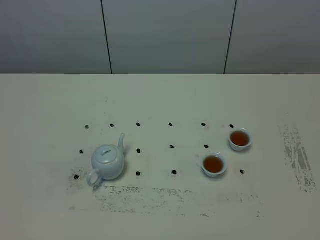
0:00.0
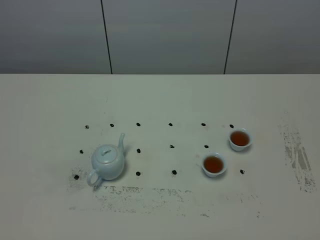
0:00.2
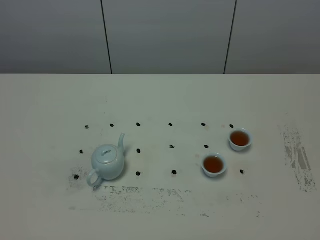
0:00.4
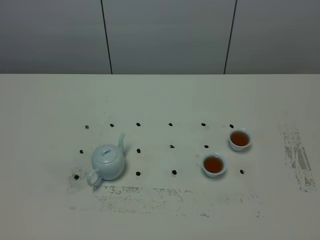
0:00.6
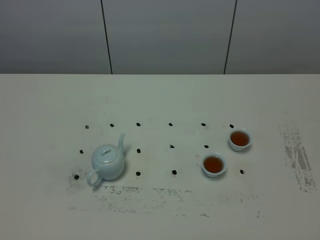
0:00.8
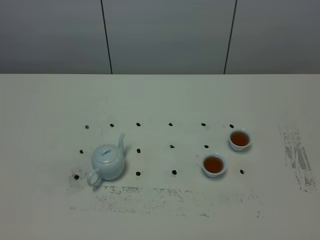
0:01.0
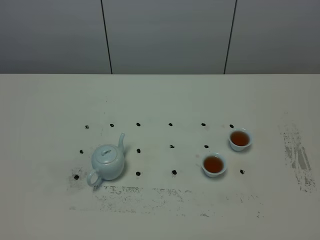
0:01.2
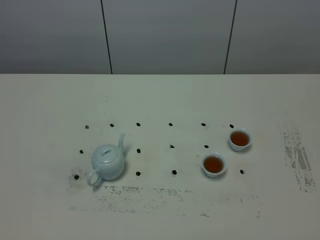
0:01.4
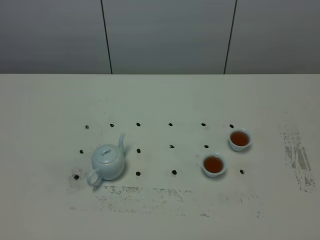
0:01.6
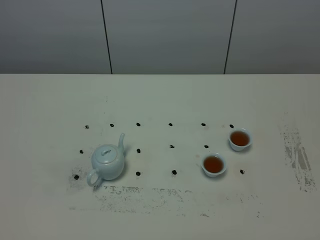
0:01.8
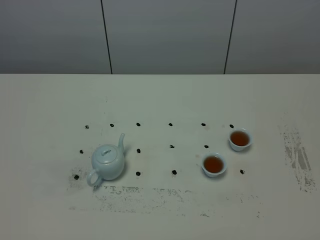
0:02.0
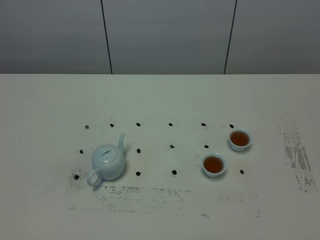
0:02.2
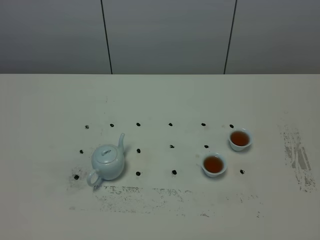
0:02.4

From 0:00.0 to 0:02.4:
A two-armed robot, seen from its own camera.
Task of the whole recording: grasp the blue porcelain teapot and pour the tea into the two blue porcelain teacups one by one, put the blue porcelain teapot back in its original place.
From 0:00.0 to 0:02.4: The two grippers keep their place.

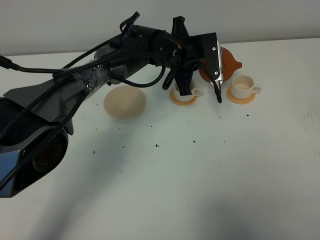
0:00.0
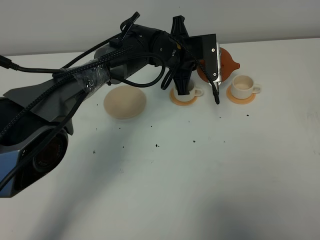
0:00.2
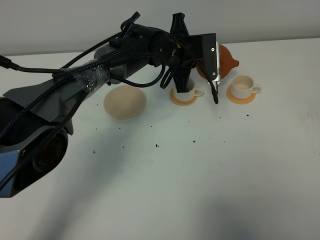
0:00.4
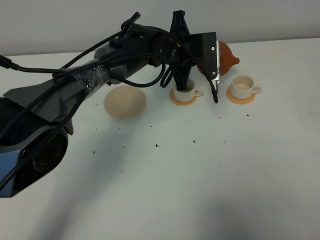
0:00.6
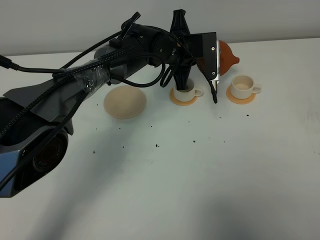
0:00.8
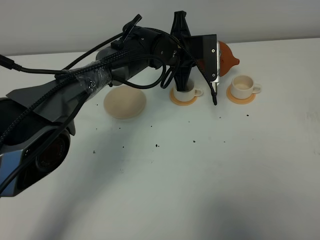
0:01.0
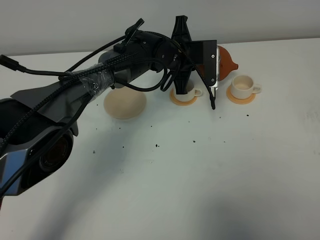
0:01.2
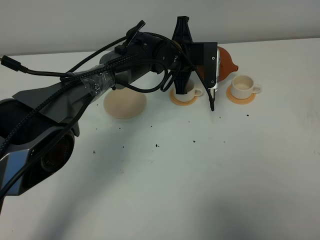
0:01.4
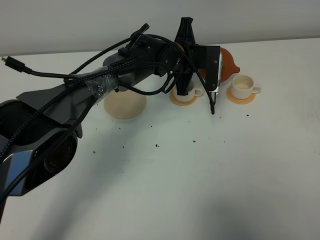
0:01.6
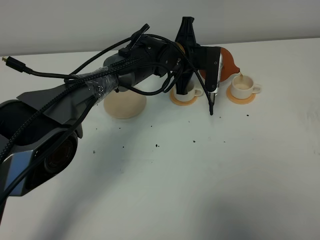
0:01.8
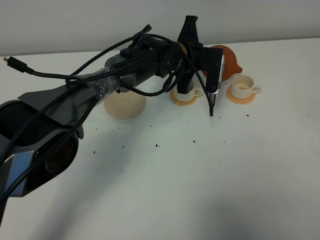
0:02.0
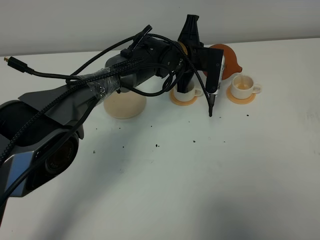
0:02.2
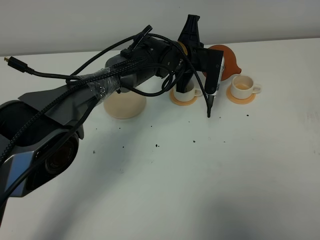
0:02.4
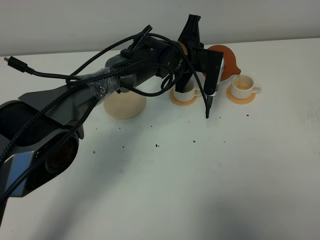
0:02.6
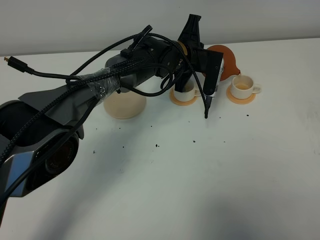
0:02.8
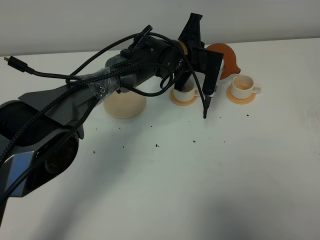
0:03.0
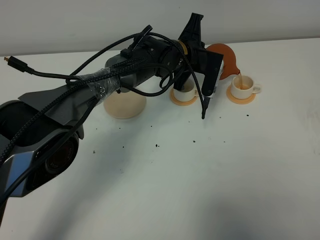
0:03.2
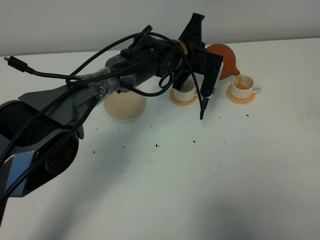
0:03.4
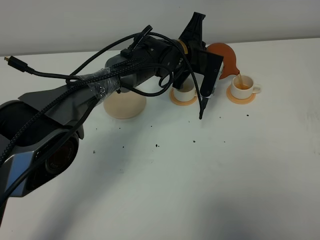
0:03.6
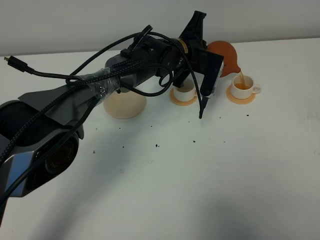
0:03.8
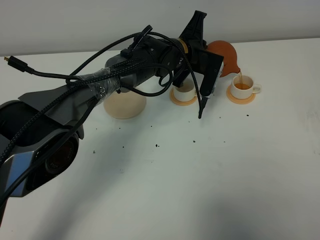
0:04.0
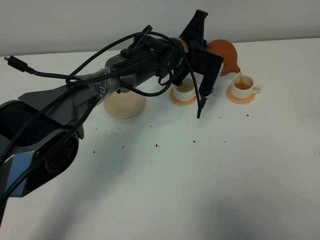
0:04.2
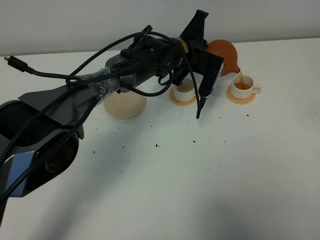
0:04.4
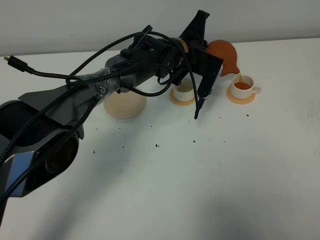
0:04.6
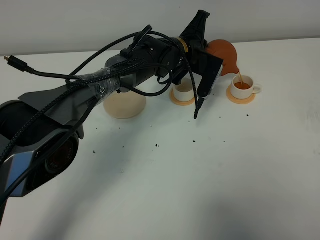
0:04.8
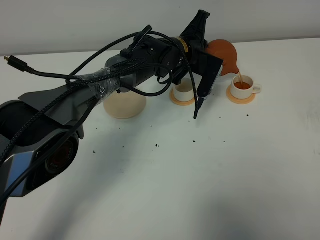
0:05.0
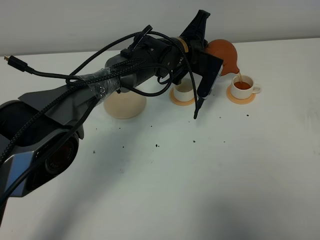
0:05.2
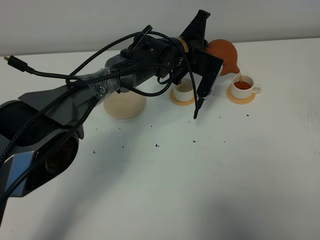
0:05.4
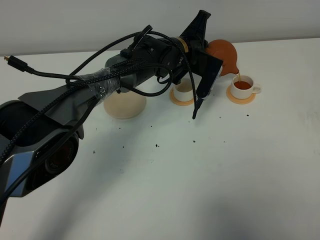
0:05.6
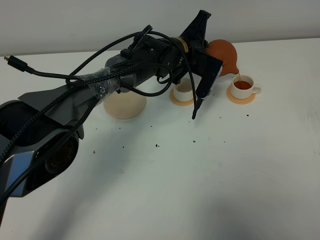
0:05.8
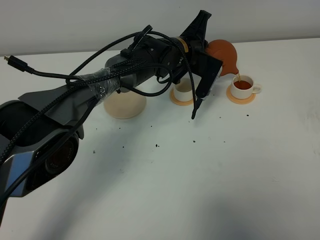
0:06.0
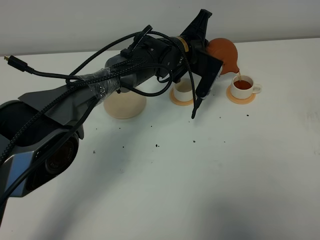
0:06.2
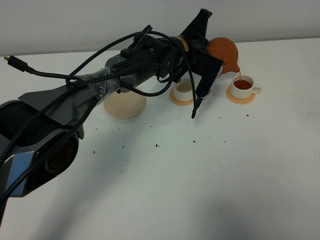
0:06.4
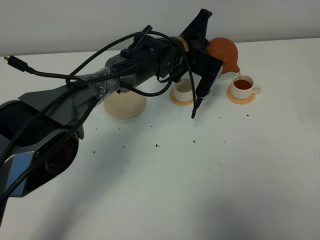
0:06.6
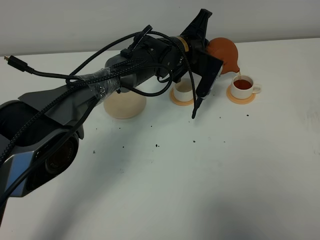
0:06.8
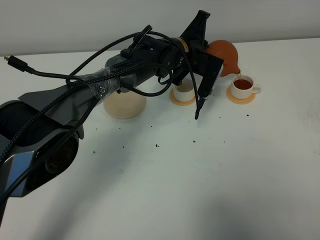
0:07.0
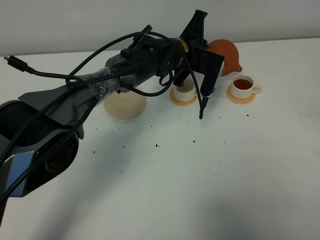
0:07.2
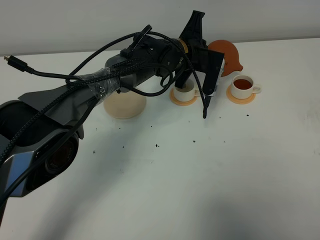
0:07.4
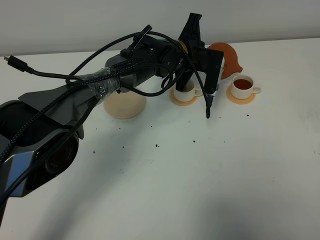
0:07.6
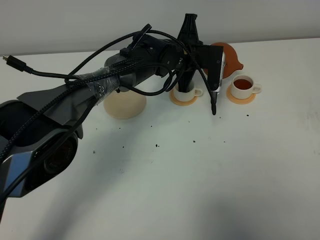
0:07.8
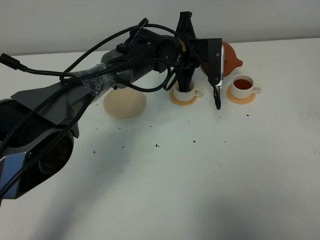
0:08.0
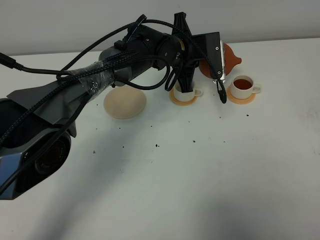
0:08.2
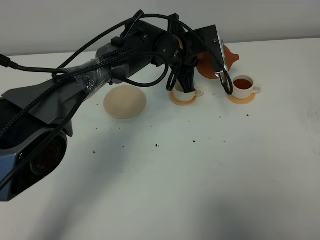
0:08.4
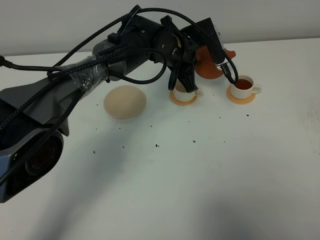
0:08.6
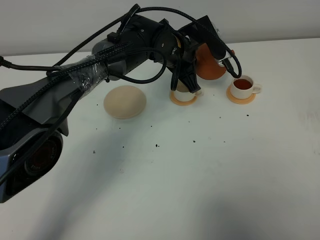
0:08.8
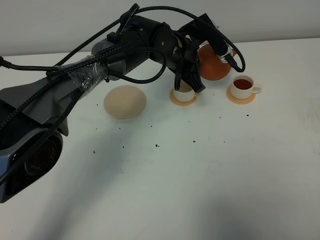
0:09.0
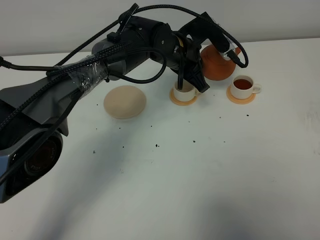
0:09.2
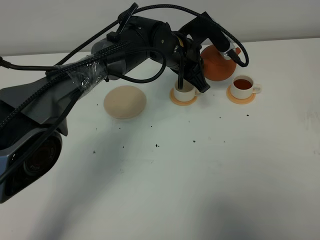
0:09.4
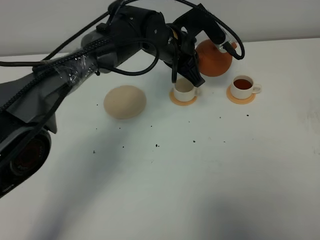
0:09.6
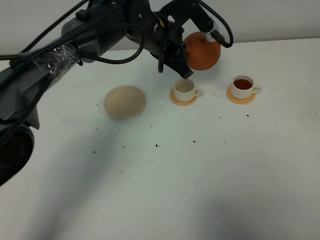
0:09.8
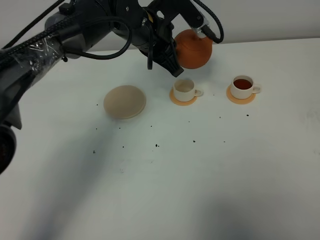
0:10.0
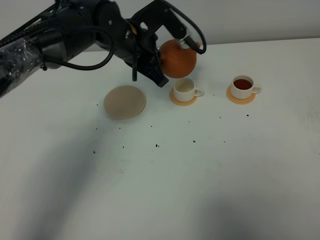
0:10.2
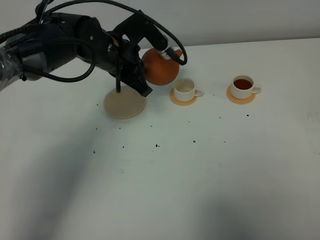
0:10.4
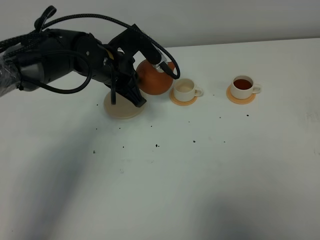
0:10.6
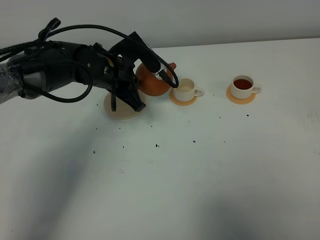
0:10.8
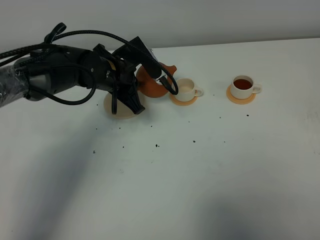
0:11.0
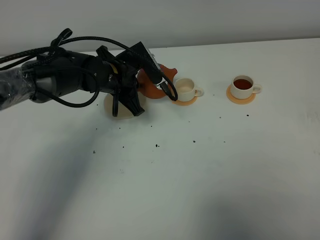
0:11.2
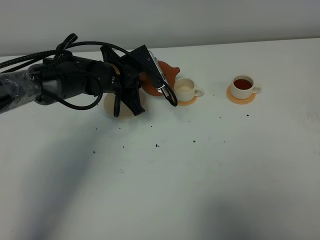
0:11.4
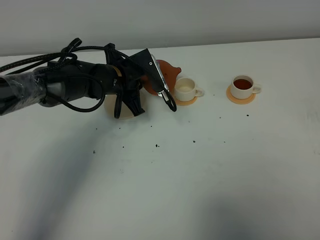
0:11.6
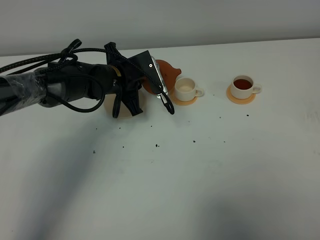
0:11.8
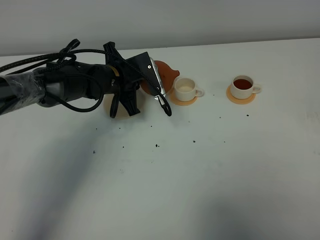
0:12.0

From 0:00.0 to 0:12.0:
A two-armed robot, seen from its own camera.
Task of the whole recording: grasp the brown teapot and pour the tea into the two white teacups one by one, put the brown teapot back in its original place.
Step, from 0:00.0 to 0:07.4: Pour tea into the teacup with the left gripper.
From 0:00.0 to 0:01.6: The grippers move only a little.
From 0:01.6 to 0:03.0: The grippers make only small movements.
From 0:03.0 to 0:07.6: There are only small adjustments of the grippers.
From 0:09.0 to 0:10.4: The left gripper travels to the left by roughly 10 cm.
From 0:10.4 to 0:12.0: The left gripper heads downward, covering about 10 cm.

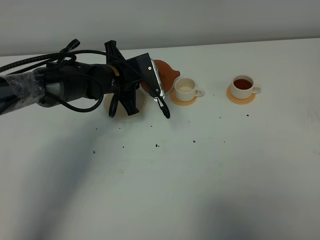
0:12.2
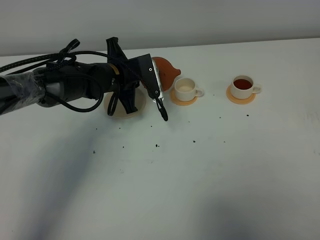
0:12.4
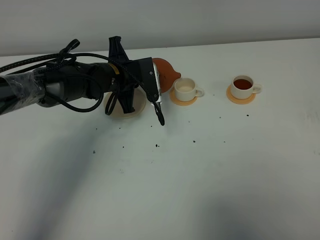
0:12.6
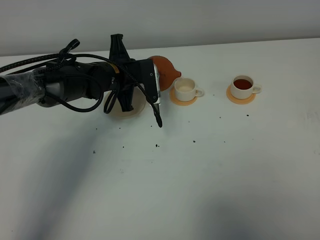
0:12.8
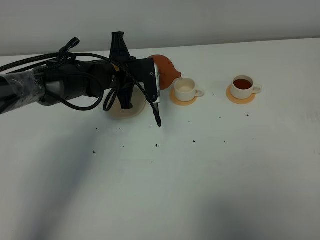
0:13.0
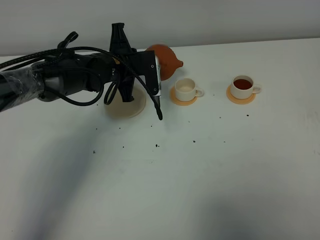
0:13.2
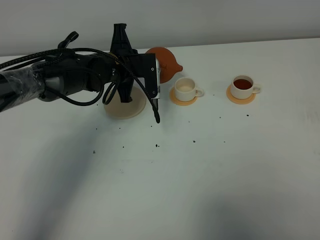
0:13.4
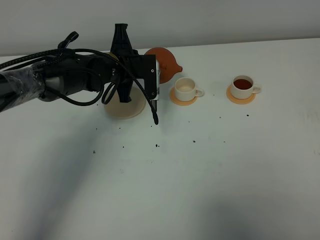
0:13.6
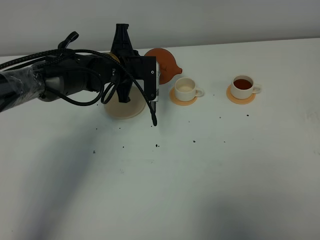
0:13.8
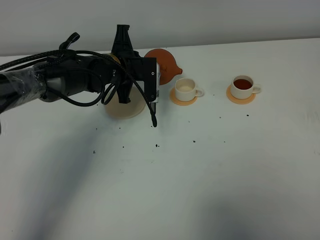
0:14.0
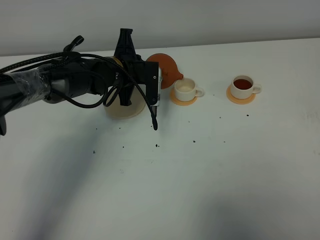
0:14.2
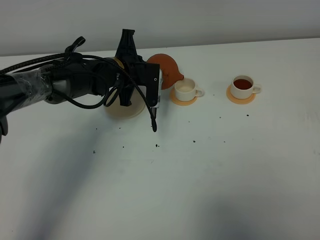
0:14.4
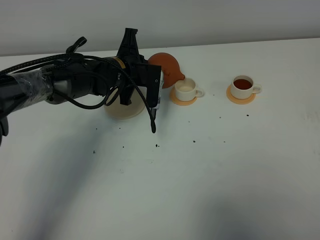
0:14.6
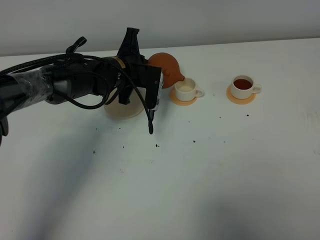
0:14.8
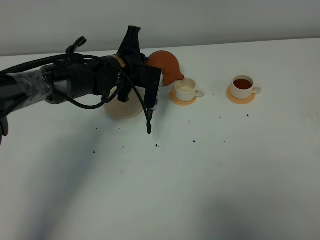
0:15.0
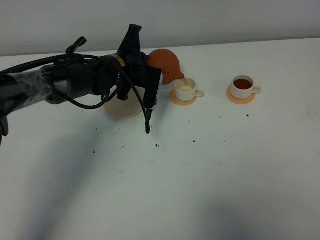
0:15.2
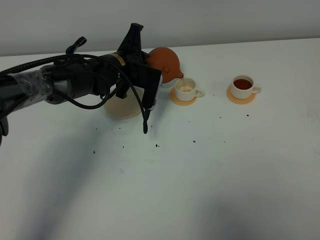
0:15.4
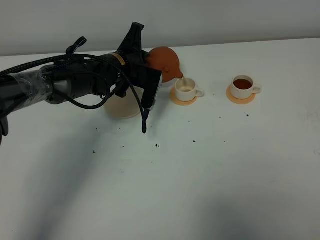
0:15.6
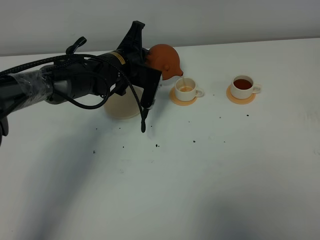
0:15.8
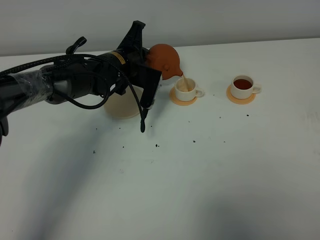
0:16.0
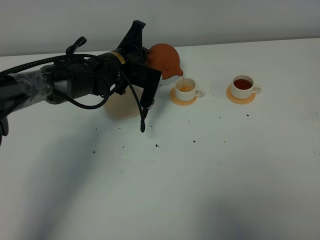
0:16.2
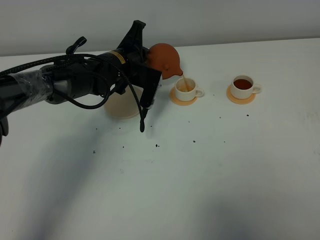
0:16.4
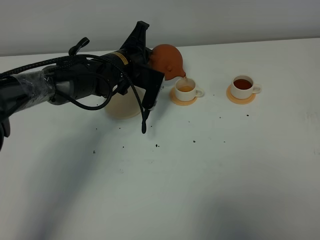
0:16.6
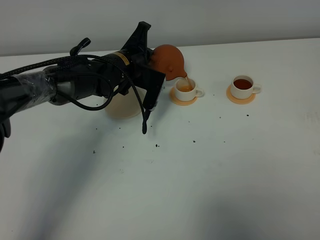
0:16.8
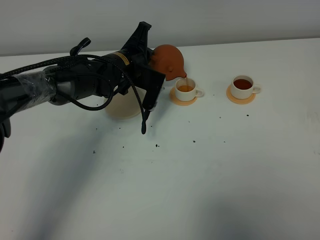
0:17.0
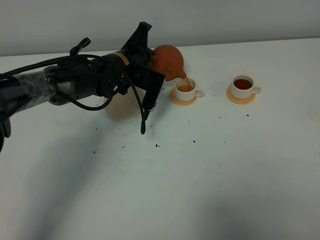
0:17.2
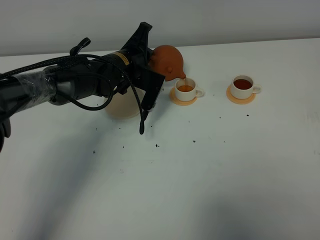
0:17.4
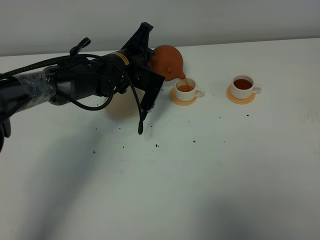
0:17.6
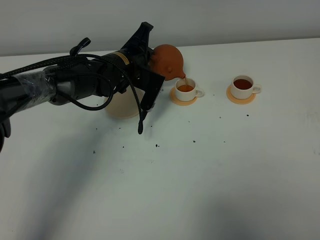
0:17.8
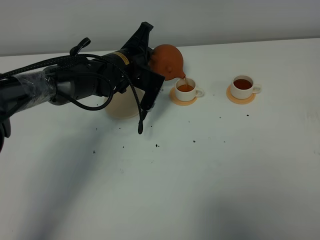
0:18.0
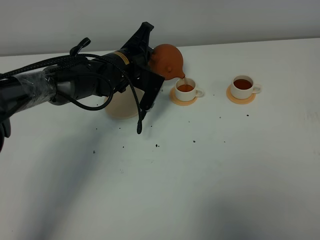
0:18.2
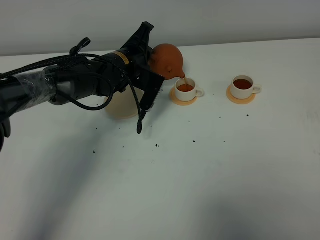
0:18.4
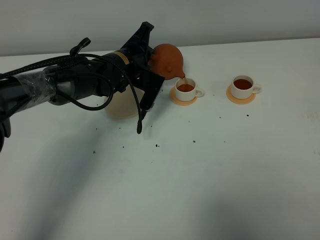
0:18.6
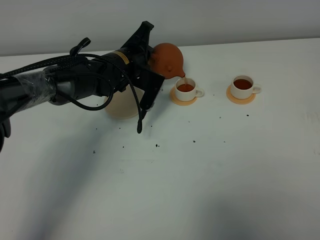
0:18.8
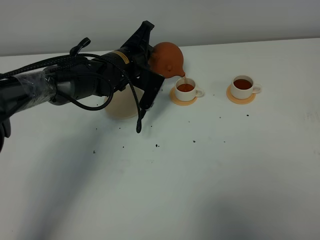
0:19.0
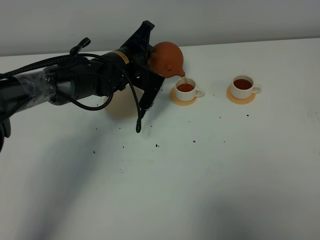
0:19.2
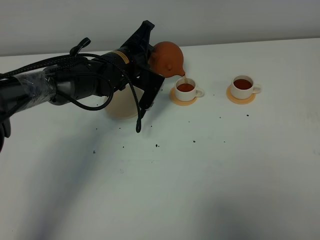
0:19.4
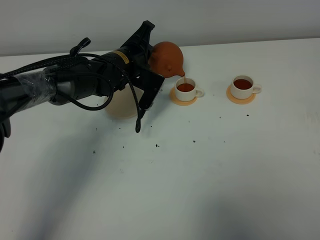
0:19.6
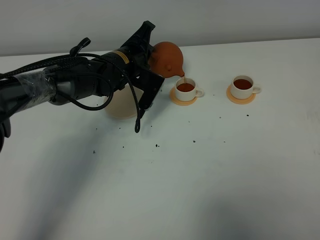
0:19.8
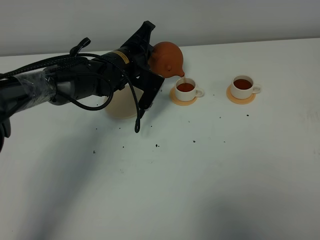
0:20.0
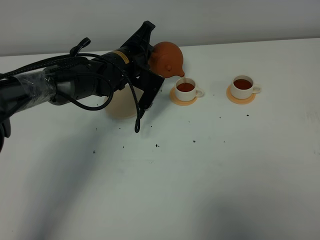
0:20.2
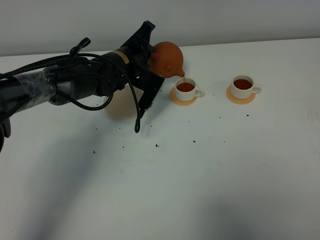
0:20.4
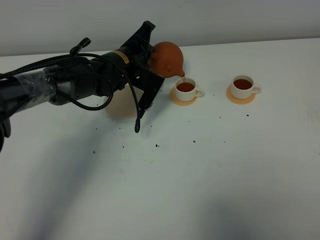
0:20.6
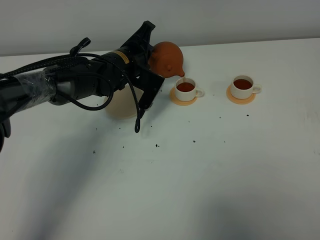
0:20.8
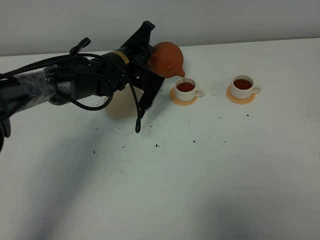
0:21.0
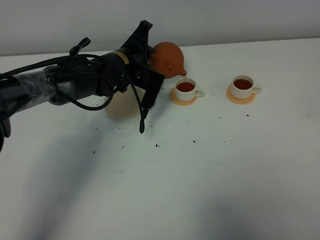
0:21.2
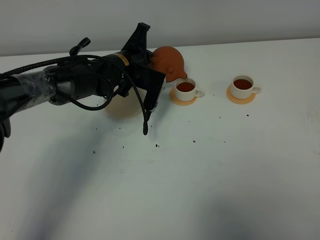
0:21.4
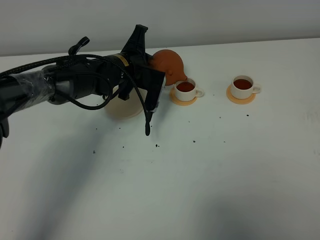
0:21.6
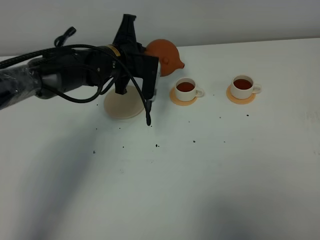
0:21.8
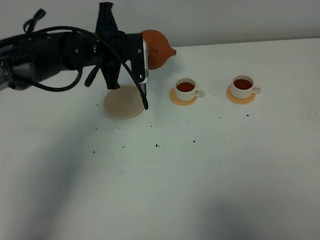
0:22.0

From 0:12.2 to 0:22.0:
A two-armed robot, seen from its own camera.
Task of the whole recording: grasp the brown teapot and pour the tea into the two white teacups one by one, put the brown teapot back in its original place.
Step, from 0:12.2 to 0:21.6: Pour tea into the teacup with the left gripper.
From 0:13.6 to 0:15.0: The grippers move only a little.
From 0:15.0 to 0:17.8: The grippers move only a little.
From 0:17.8 to 0:20.6: Neither gripper changes place.
From 0:20.6 to 0:22.0: The left gripper goes some 5 cm upward.
